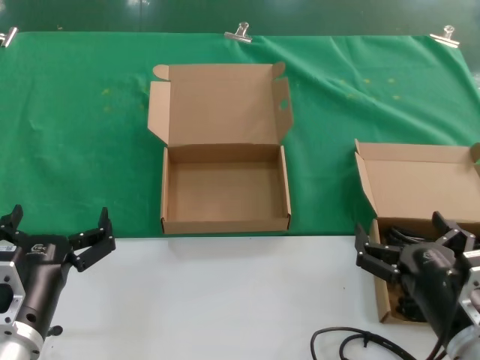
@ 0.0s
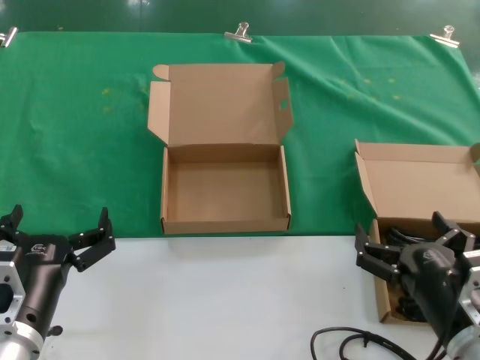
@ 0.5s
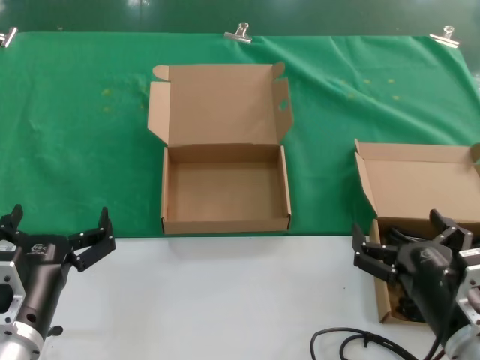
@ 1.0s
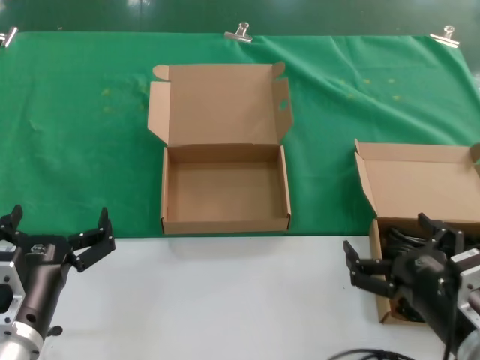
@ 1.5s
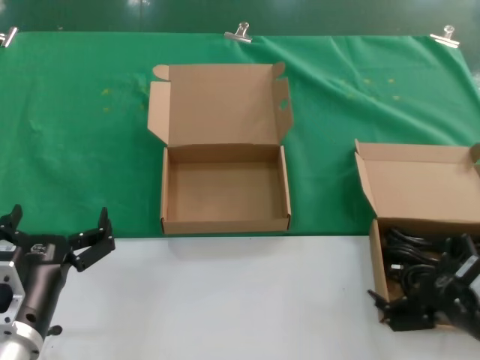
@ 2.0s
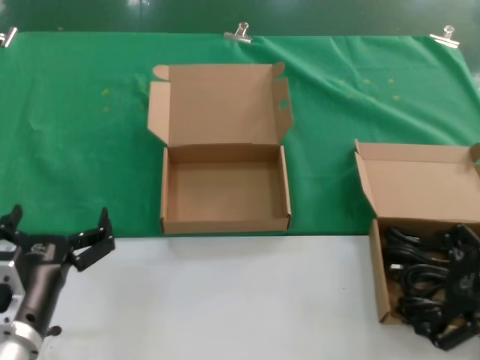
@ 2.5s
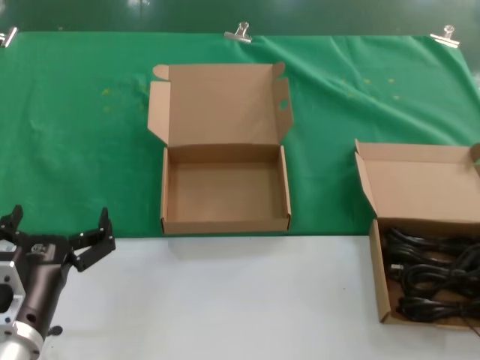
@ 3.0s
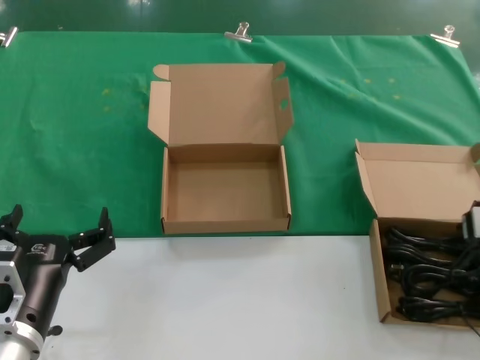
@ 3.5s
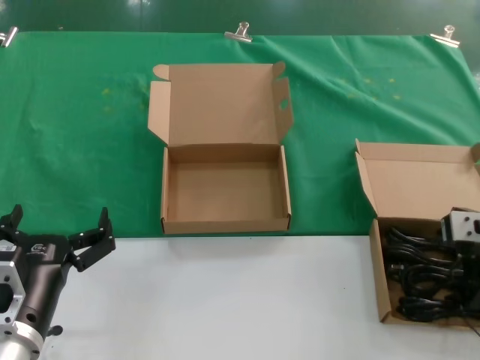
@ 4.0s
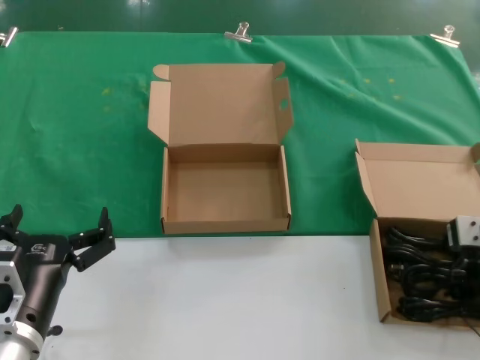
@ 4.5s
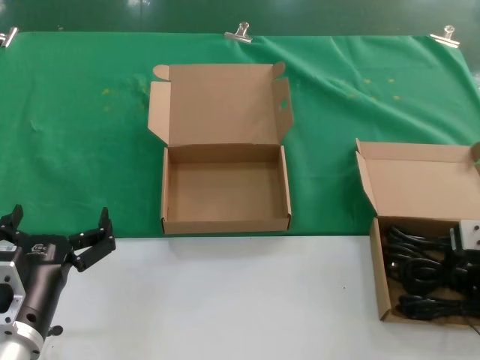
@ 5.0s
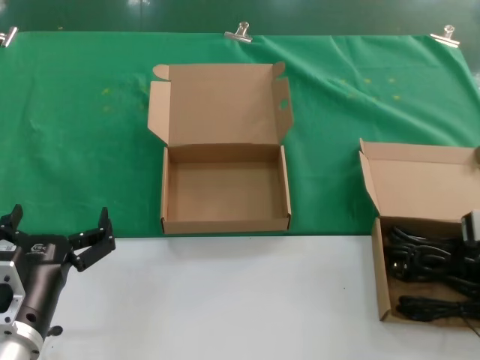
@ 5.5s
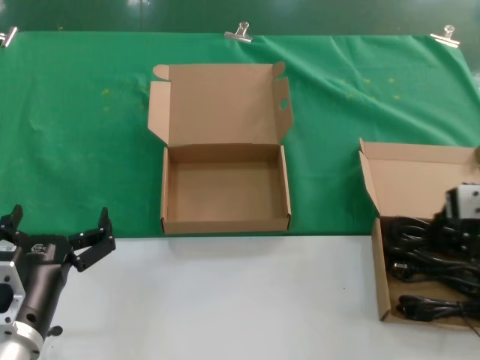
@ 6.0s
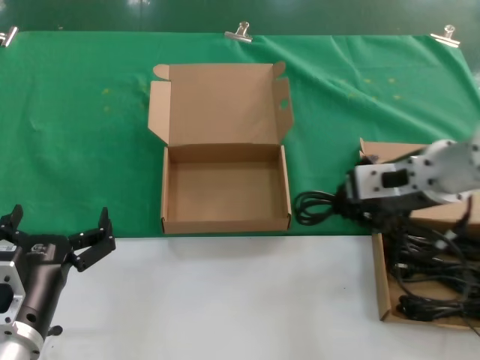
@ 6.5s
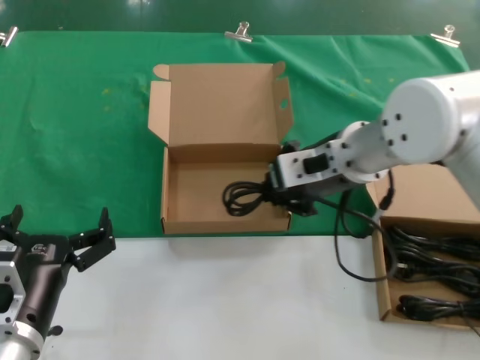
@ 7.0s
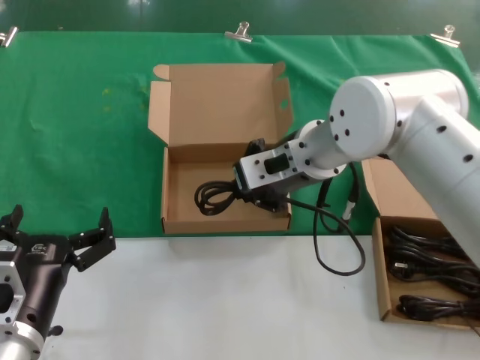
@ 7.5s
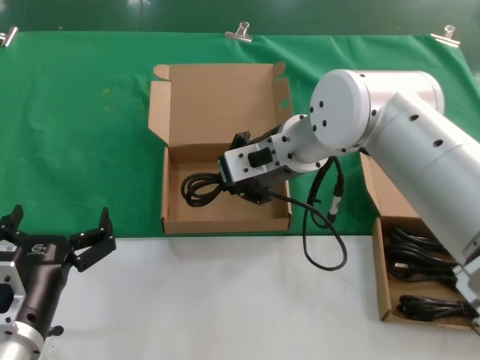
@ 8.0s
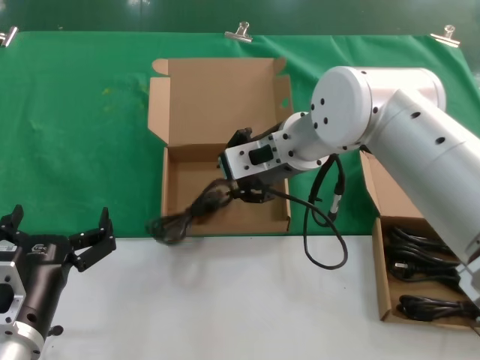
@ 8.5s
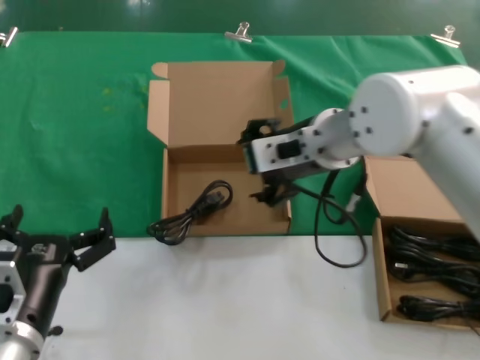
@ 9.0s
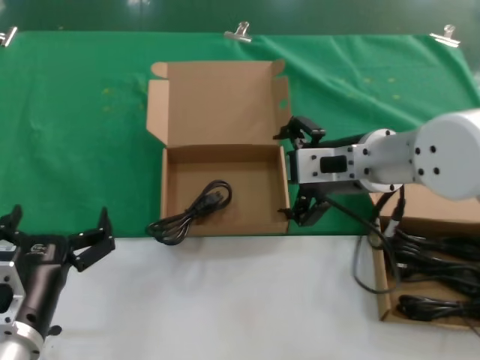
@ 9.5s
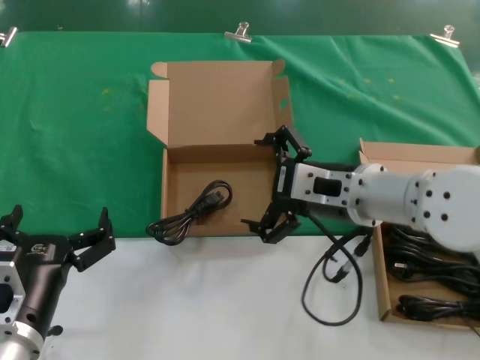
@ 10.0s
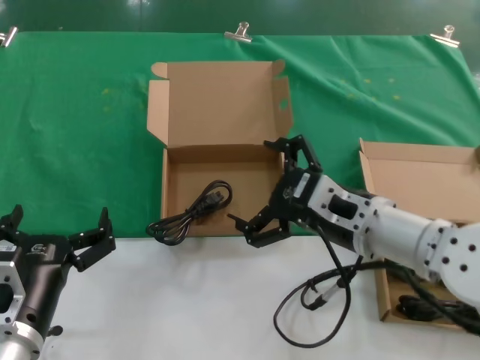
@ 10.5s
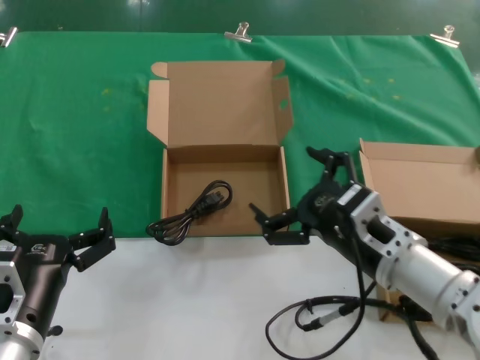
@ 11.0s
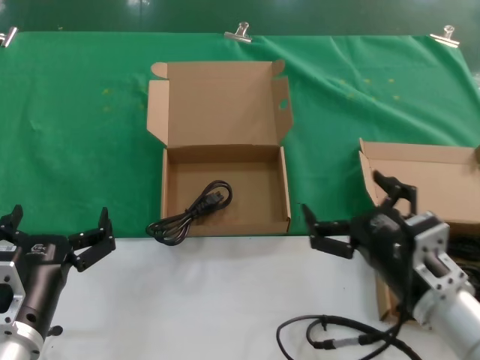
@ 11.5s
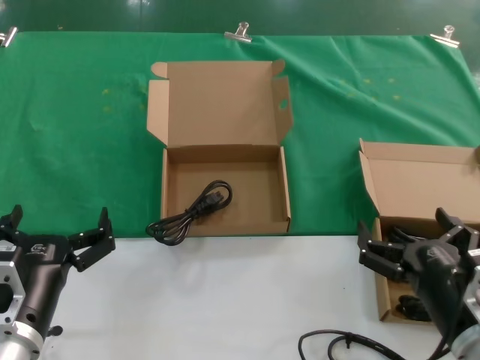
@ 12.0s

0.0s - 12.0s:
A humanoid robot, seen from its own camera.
Task of the whole recording: take the parts from the box containing them and put them into an empty box.
Step, 0.0s - 4.5s: Grasp the data cable.
Step, 5.0s - 8.5s: Place the data cable in the another box.
0.0s - 2.0s: The right hand travels to the right and upward by some 10 cm.
2.0s - 4.0s: The right hand travels forward and upward by roughly 20 cm.
4.0s - 6.0s: The right hand travels upward by approximately 5 cm.
6.0s - 8.0s: The right hand is displaced to the left and forward by roughly 25 cm.
8.0s - 10.0s: The right hand travels to the right and backward by approximately 10 cm.
10.0s - 12.0s: The right hand travels downward, backward and to the right by roughly 25 cm.

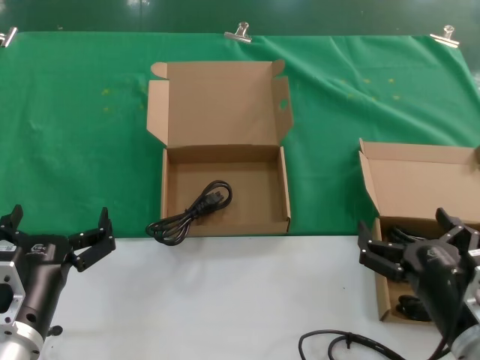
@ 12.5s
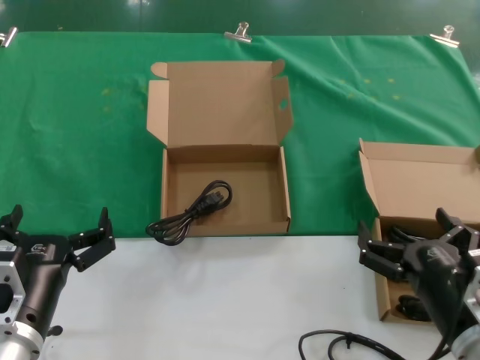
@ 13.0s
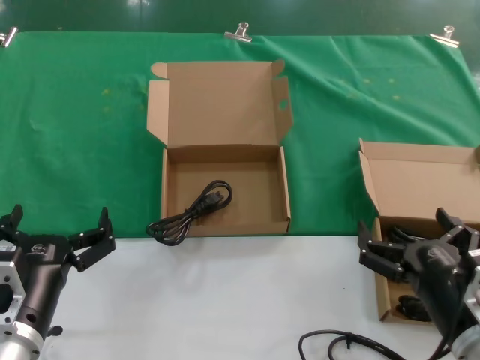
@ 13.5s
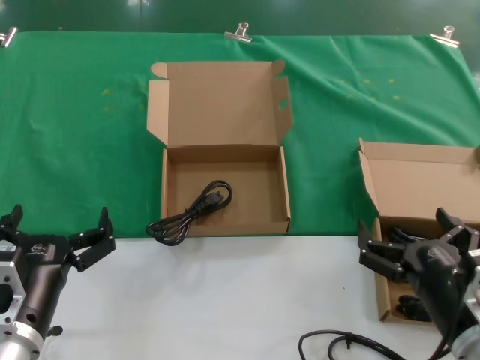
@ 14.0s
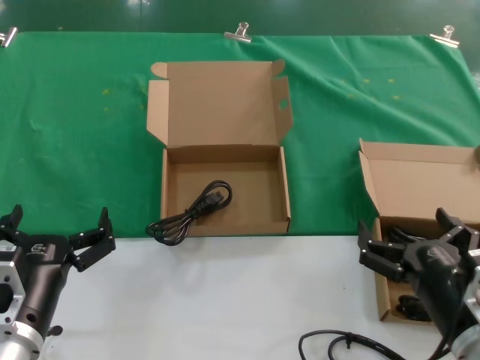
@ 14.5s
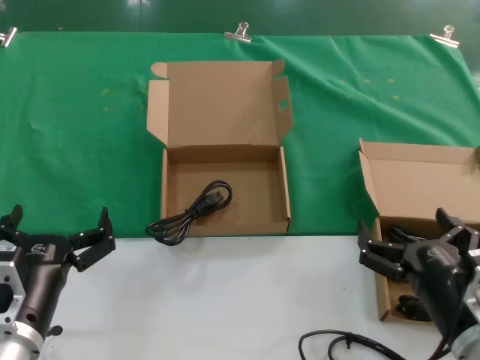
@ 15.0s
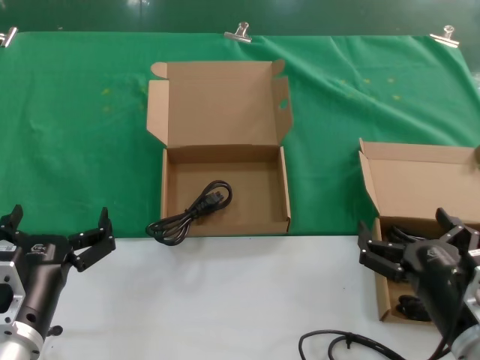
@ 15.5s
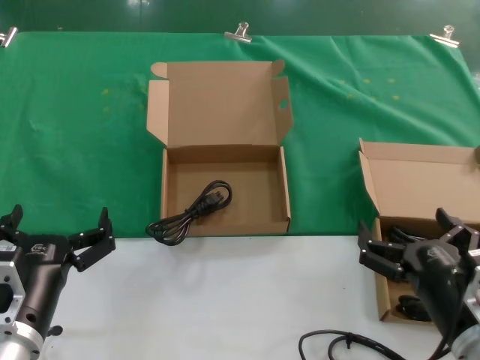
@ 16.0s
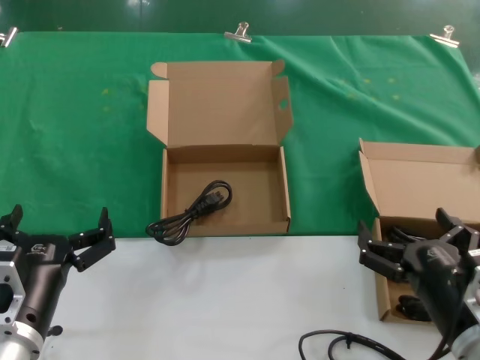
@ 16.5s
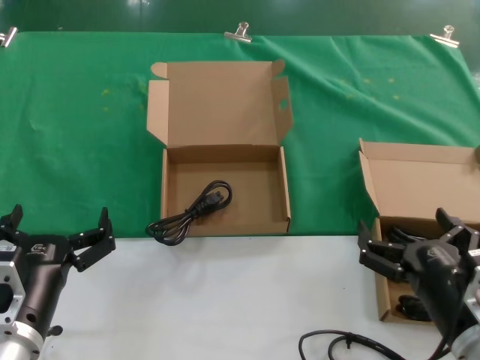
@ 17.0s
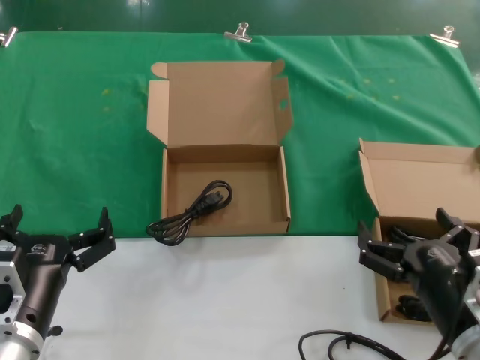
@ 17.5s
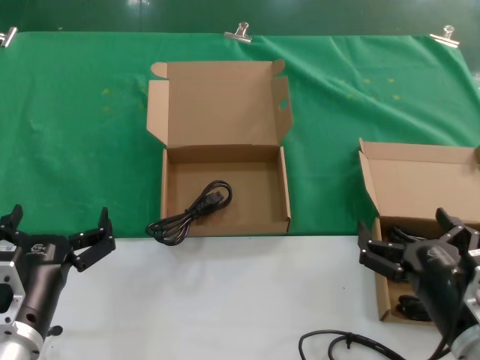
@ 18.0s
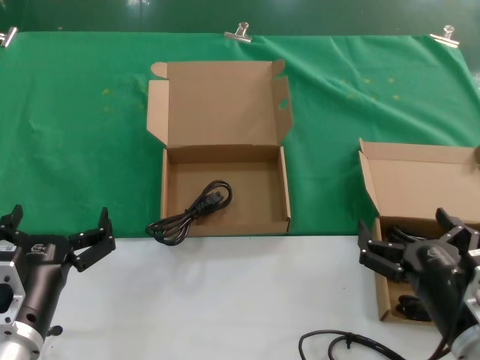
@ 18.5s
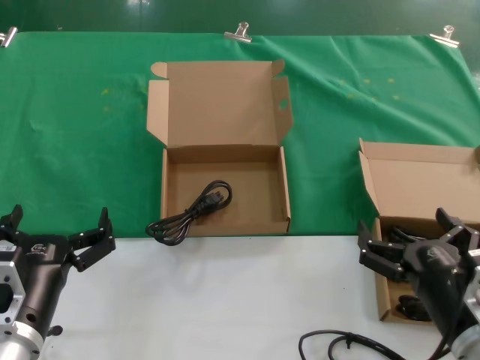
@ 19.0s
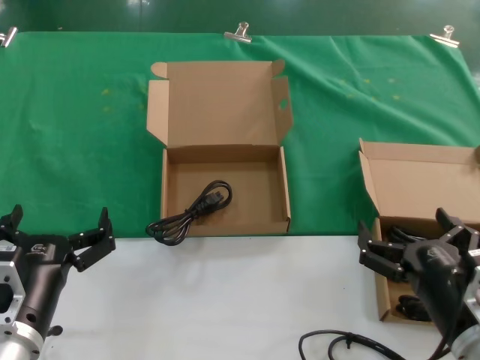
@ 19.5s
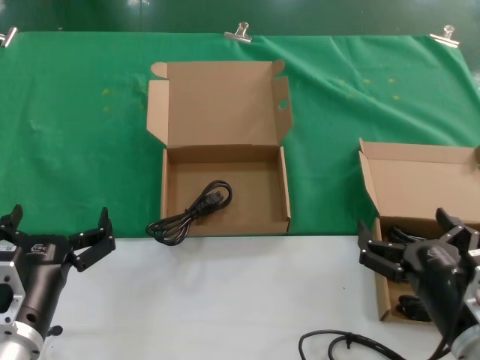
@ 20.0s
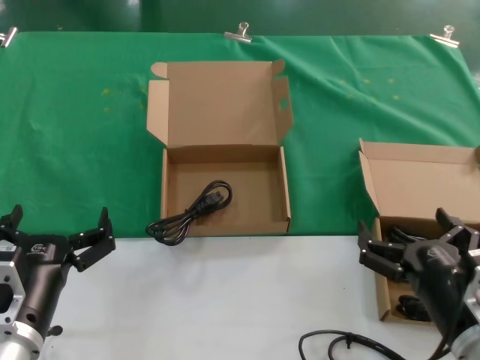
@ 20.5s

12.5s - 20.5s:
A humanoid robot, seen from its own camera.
Task of the whole recording: take the parts from the box containing them and put them into an empty box.
12.5s - 20.5s: The two hands keep their place.

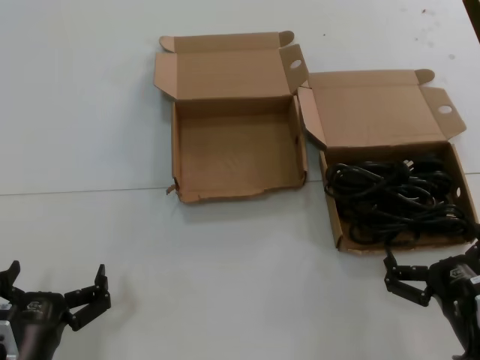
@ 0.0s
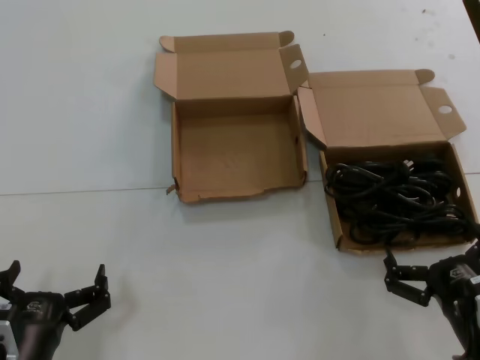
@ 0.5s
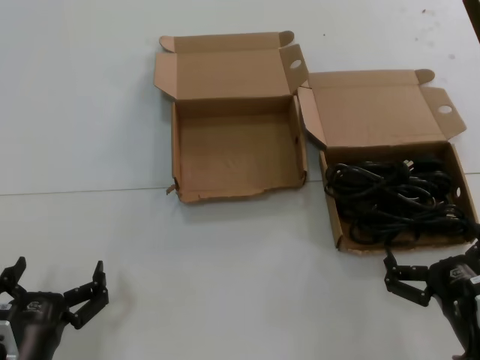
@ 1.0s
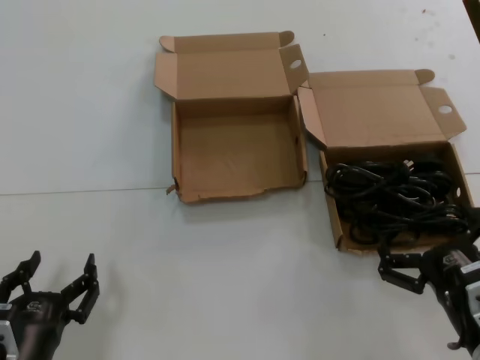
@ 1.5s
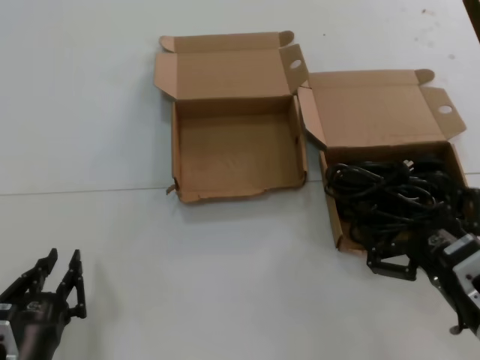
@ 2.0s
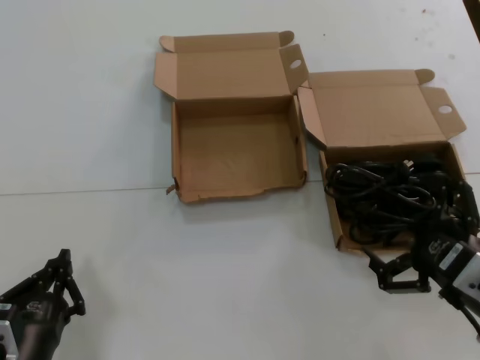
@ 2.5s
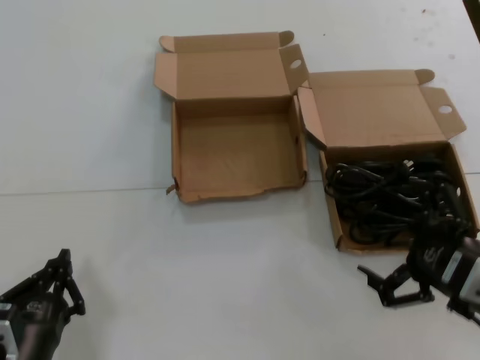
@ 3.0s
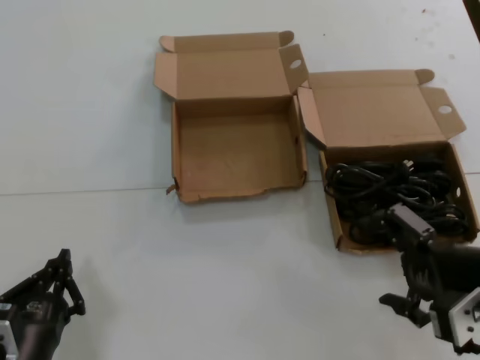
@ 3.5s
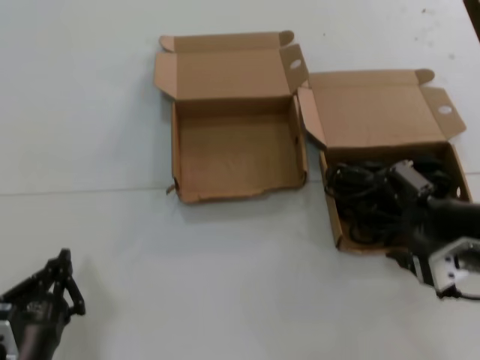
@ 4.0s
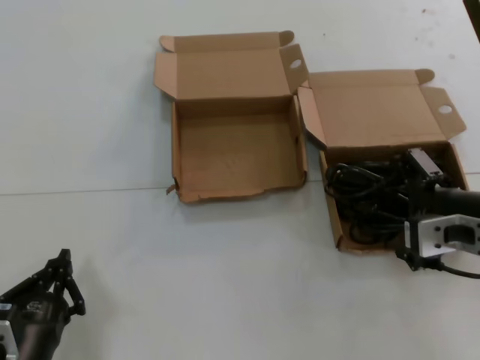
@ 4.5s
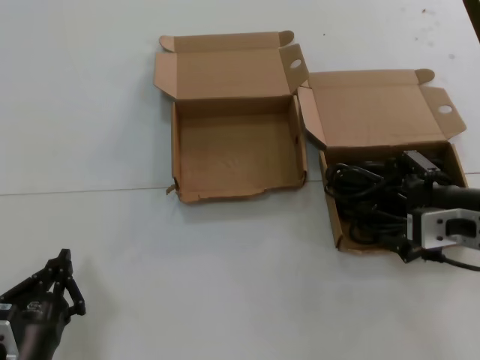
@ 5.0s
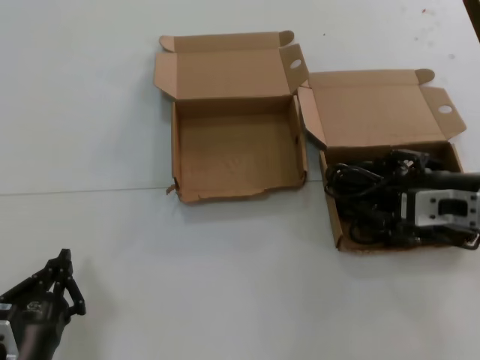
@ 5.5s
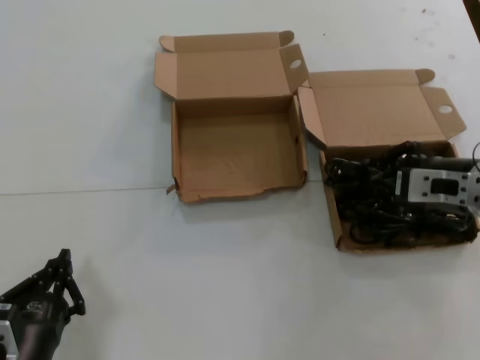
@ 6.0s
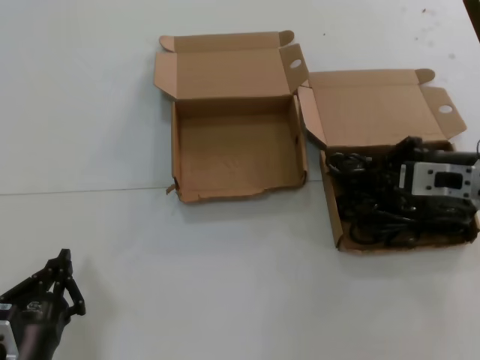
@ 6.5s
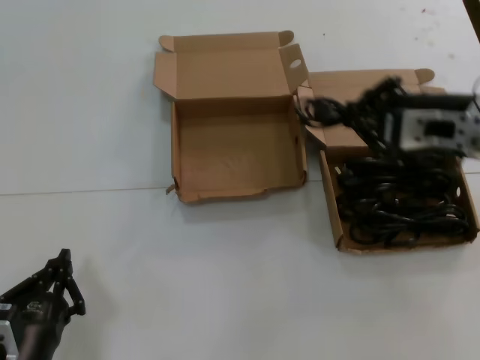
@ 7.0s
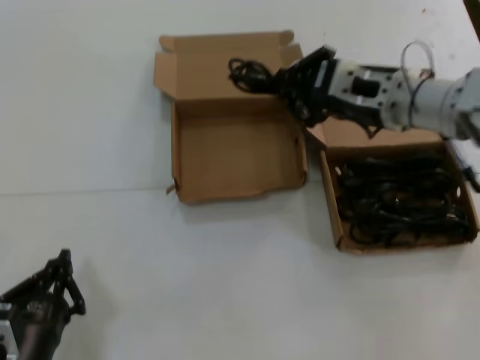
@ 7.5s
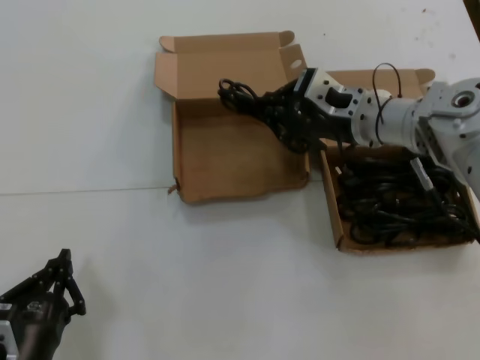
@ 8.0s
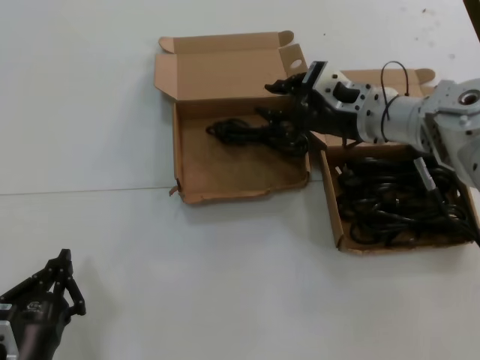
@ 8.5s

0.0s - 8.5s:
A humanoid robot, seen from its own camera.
Task of the whole recording: take the parts from the box containing them and put them into an empty box.
Step, 0.0s - 6.0s: Grasp the data cable.
Step, 6.5s - 8.0s: Place the data cable in the another box.
0.0s - 2.0s: The right hand heads upward, covering approximately 5 cm.
2.0s - 4.0s: The right hand goes some 10 cm upward and forward.
4.0s - 6.5s: The right hand shifts approximately 10 cm forward.
6.5s - 8.5s: The right hand travels to the left and forward by roughly 15 cm.
